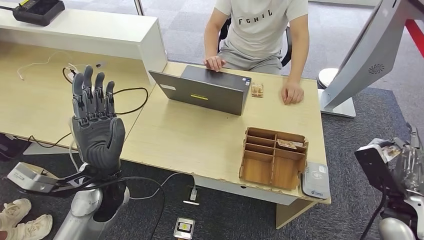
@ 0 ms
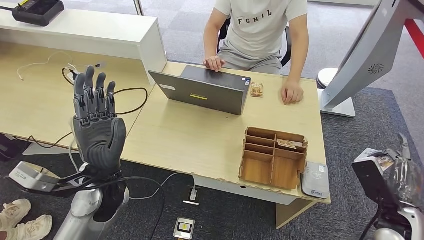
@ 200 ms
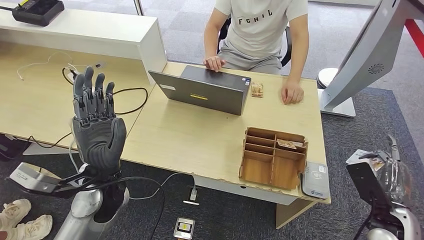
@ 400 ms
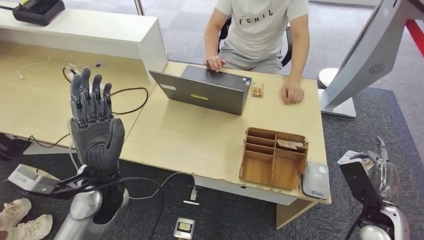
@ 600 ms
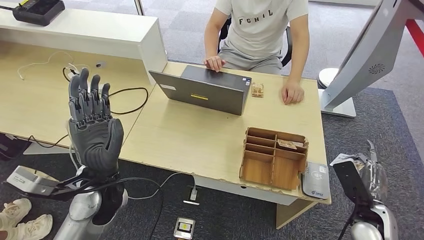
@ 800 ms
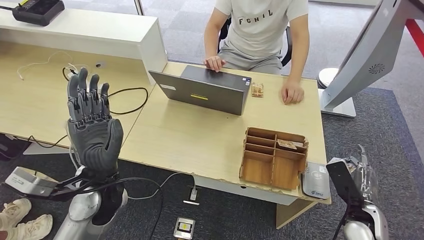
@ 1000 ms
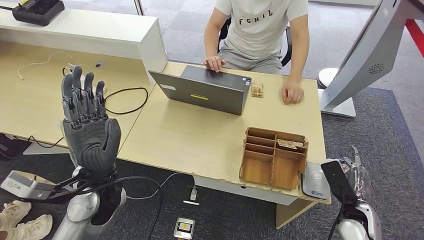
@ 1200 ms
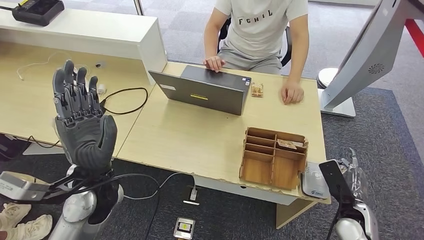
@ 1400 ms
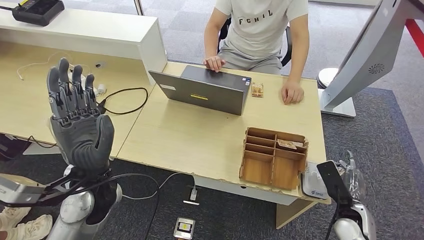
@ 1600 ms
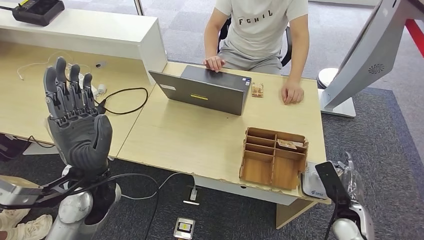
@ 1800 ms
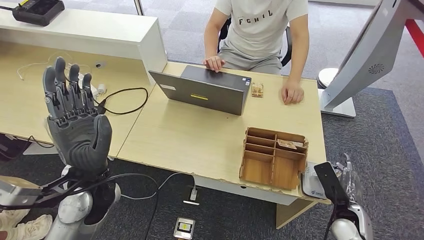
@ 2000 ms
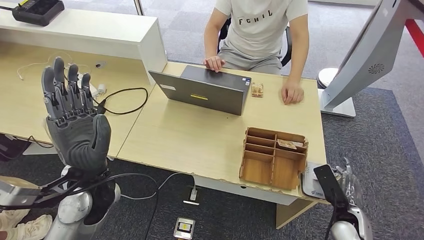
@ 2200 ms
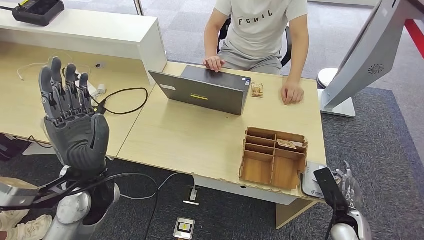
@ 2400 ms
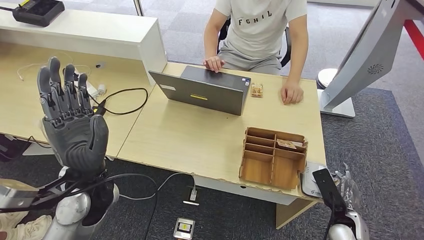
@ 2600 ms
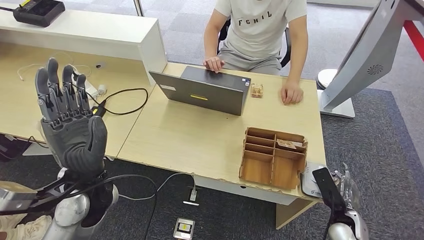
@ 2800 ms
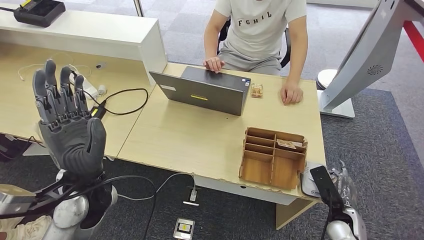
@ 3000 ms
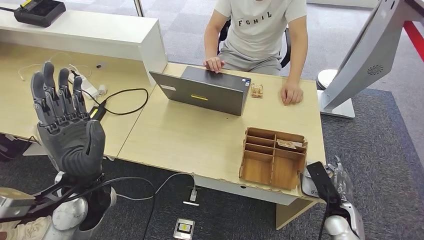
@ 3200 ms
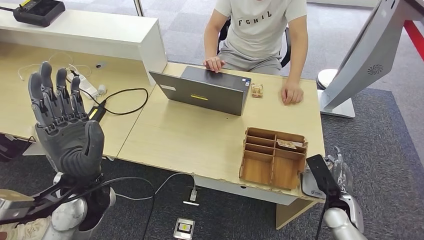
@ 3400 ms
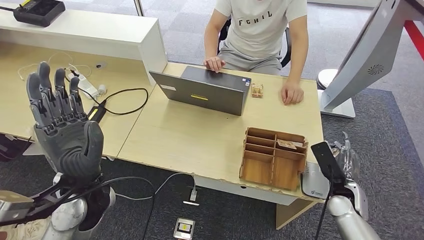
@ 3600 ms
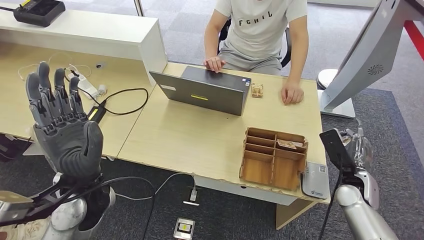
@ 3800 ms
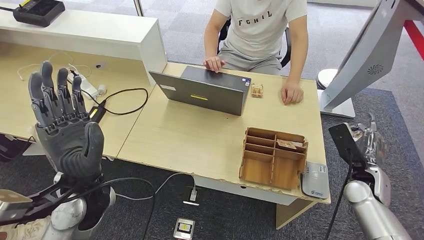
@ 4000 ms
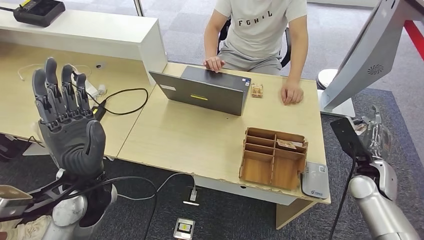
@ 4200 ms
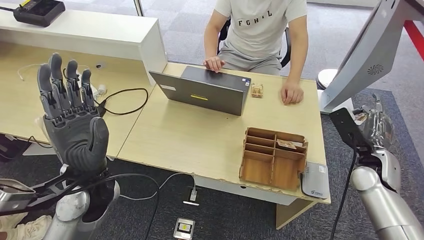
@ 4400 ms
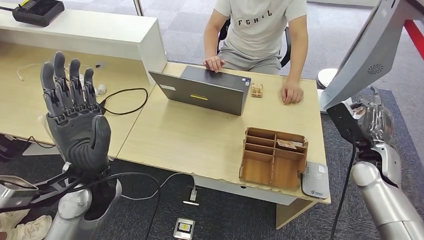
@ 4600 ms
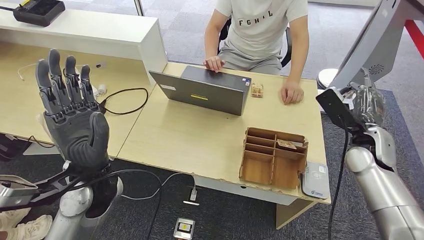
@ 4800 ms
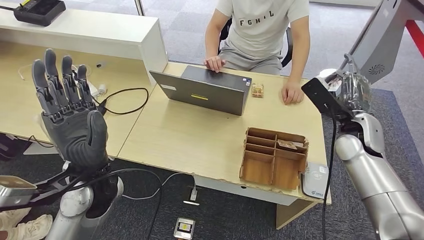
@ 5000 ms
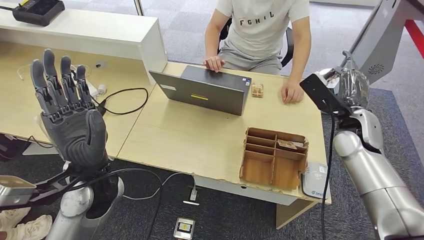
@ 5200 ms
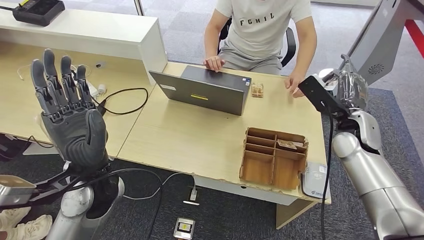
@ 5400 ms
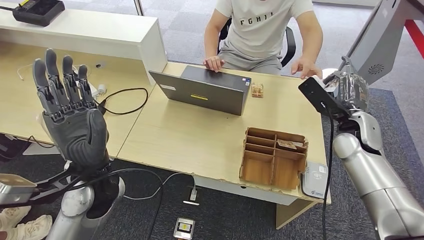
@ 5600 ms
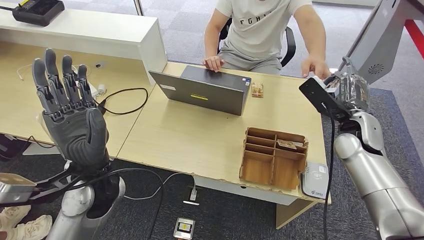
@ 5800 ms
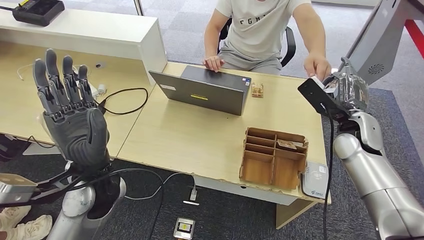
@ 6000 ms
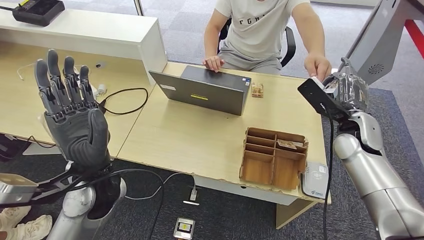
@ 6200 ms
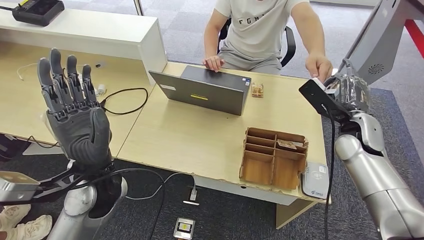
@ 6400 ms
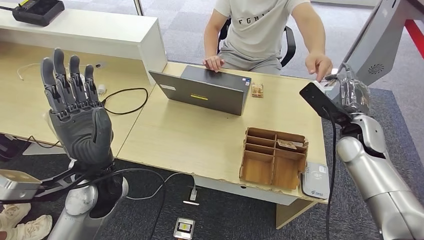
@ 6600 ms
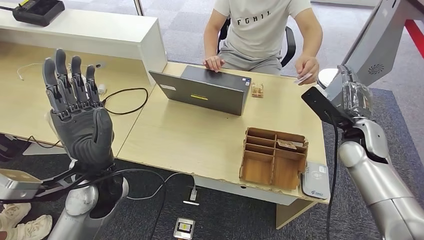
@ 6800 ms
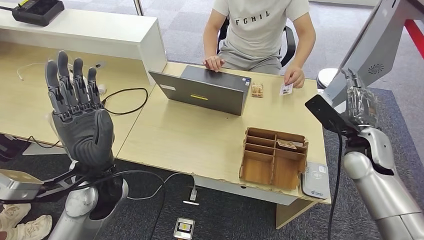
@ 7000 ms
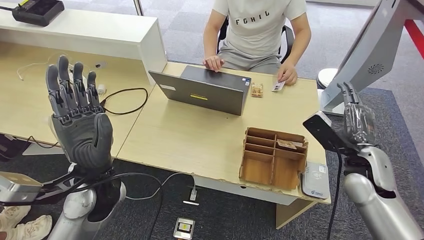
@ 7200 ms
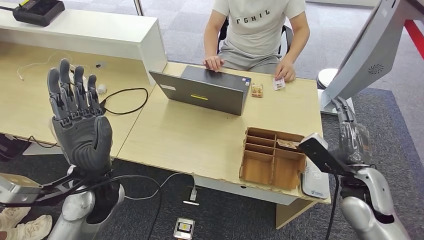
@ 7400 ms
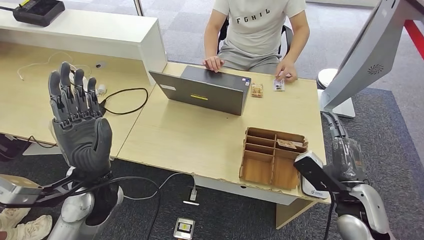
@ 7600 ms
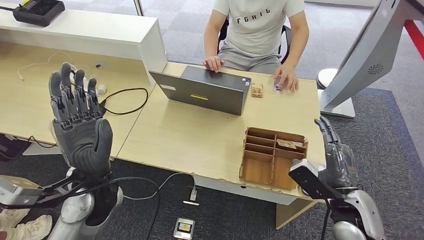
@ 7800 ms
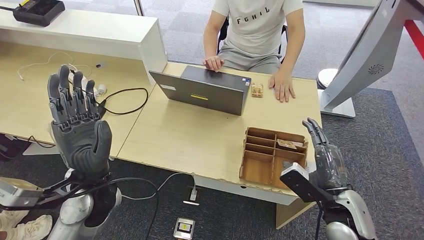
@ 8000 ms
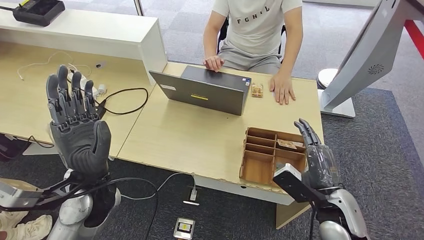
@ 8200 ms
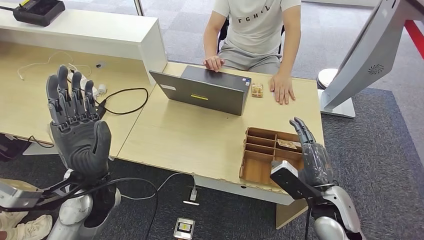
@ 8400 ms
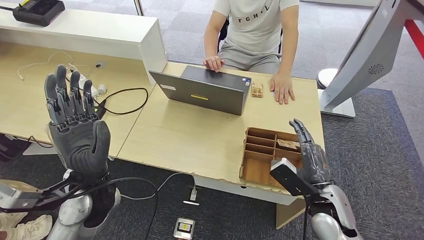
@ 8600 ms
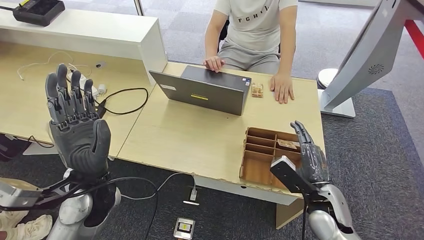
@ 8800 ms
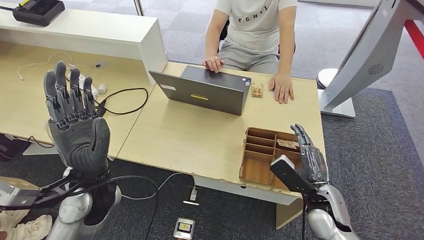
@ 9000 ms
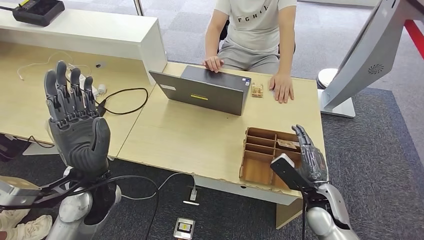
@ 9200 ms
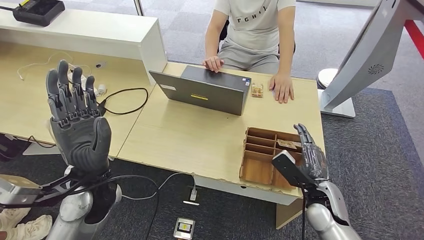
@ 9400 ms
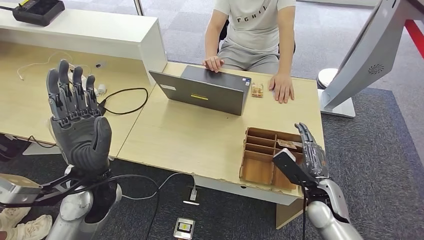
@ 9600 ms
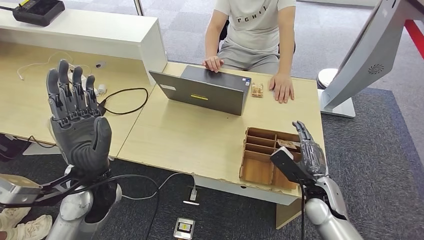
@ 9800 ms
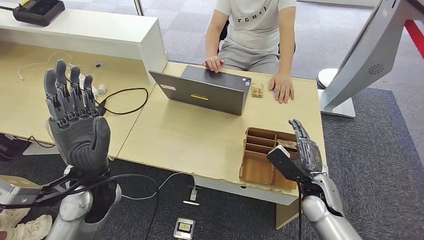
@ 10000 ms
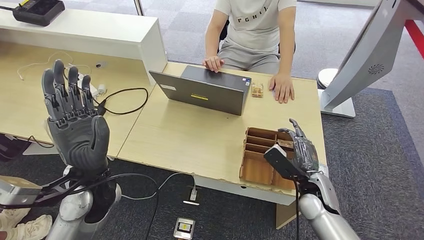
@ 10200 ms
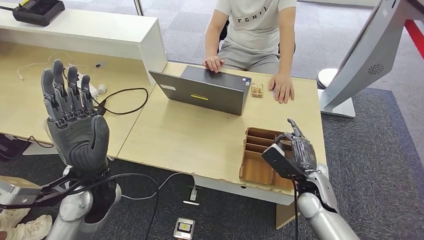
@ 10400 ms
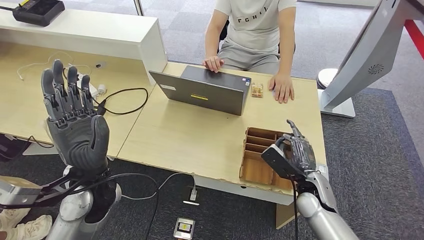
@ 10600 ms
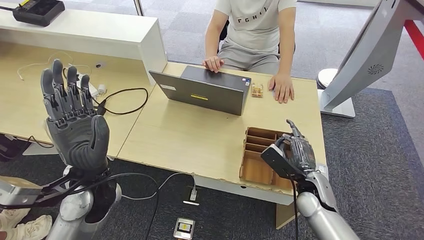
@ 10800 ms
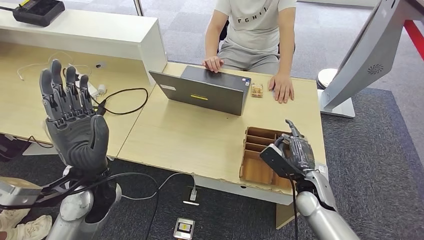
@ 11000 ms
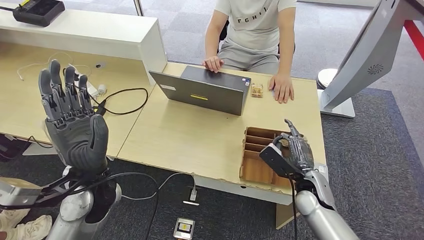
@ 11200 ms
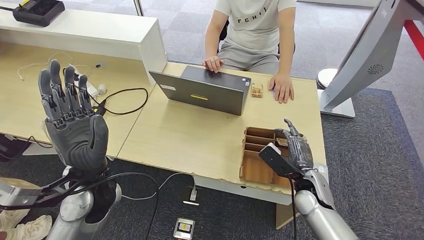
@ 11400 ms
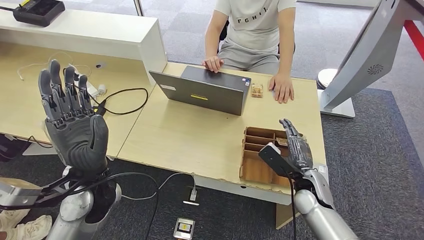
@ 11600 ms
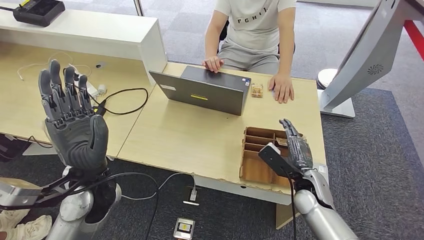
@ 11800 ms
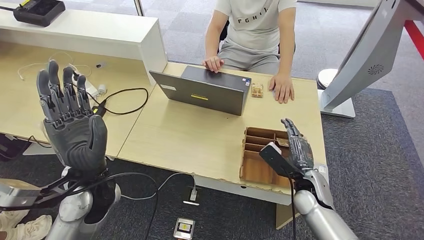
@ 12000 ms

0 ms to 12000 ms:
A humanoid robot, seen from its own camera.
Step, 0 ms to 3800 ms: Place the ID card on the card reader.
Step, 4000 ms to 7600 ms: Hand the ID card to the person.
0 ms to 1600 ms: The right hand travels downward by some 10 cm.
1600 ms to 3000 ms: The hands move only a little.
3000 ms to 4400 ms: The right hand is displaced upward and forward by approximately 20 cm.
4400 ms to 6000 ms: The right hand is displaced upward and to the left by about 10 cm.
6000 ms to 7600 ms: The right hand moves backward and downward, about 15 cm.
7600 ms to 9000 ms: The right hand moves downward, some 5 cm.
9000 ms to 10400 ms: The hands make only small movements.
10400 ms to 12000 ms: Both hands stay about where they are.

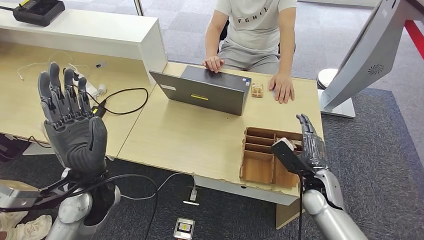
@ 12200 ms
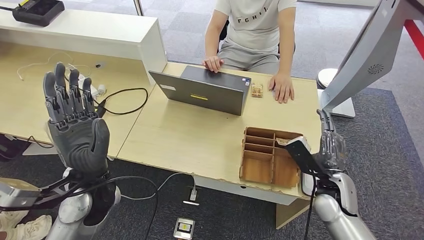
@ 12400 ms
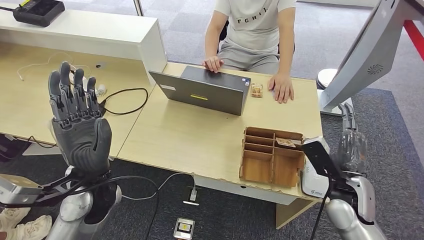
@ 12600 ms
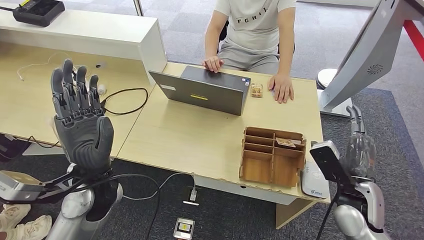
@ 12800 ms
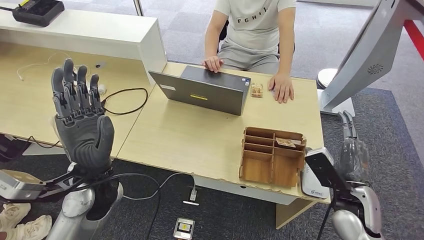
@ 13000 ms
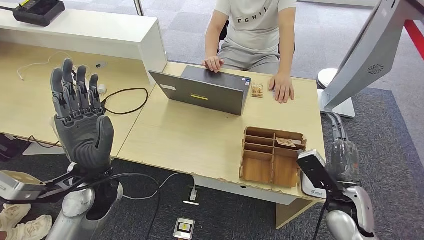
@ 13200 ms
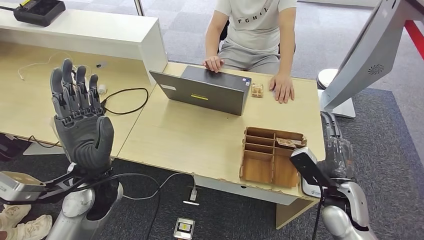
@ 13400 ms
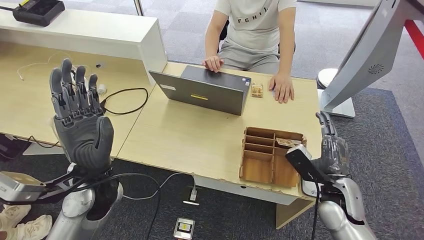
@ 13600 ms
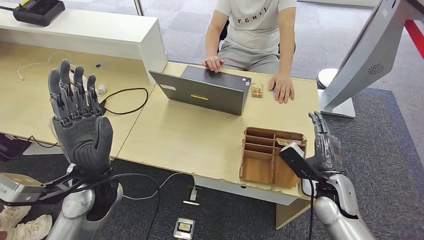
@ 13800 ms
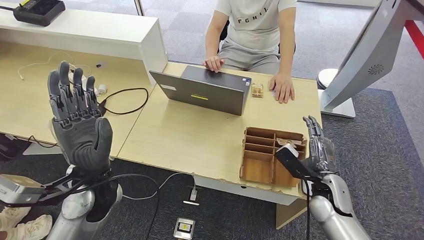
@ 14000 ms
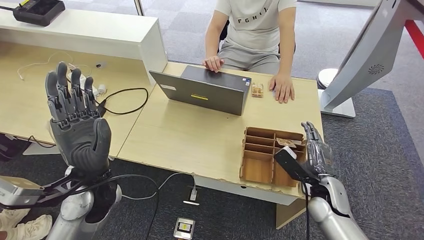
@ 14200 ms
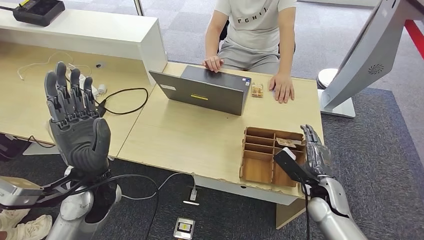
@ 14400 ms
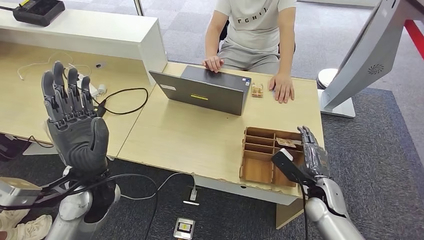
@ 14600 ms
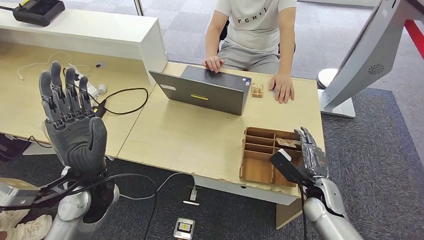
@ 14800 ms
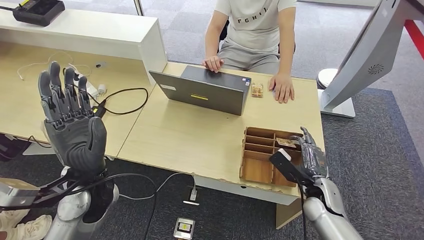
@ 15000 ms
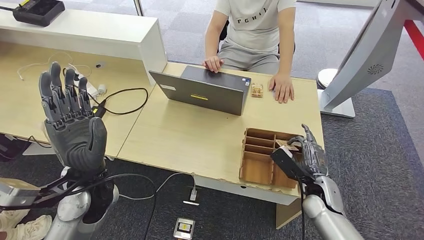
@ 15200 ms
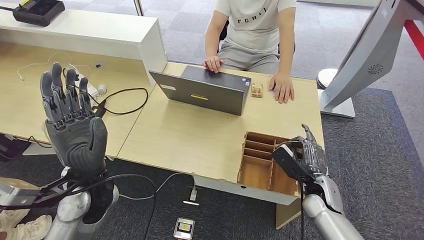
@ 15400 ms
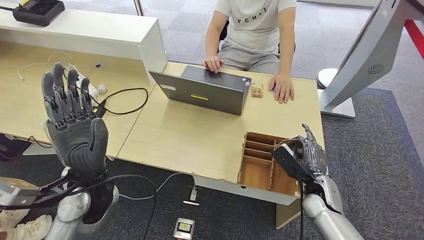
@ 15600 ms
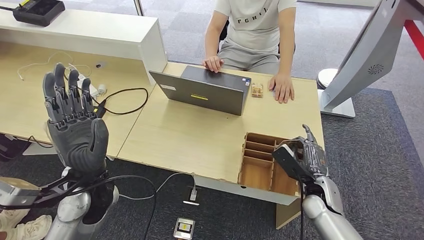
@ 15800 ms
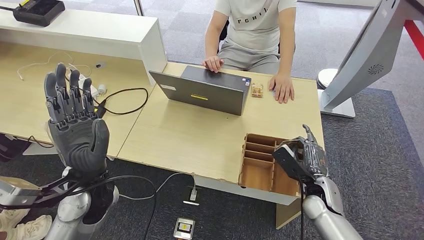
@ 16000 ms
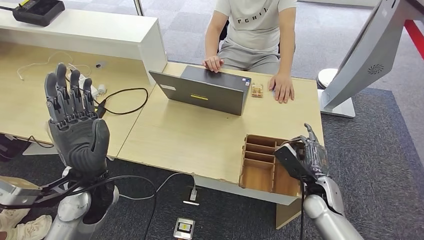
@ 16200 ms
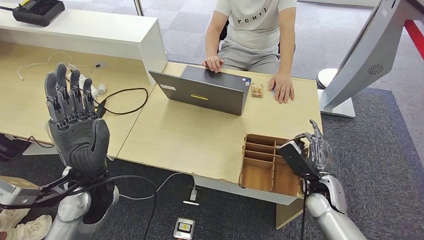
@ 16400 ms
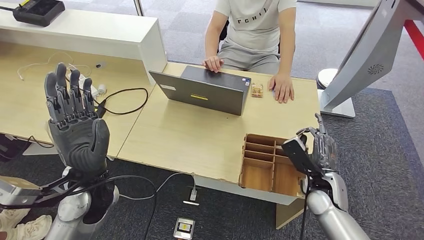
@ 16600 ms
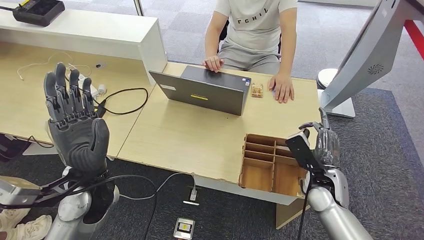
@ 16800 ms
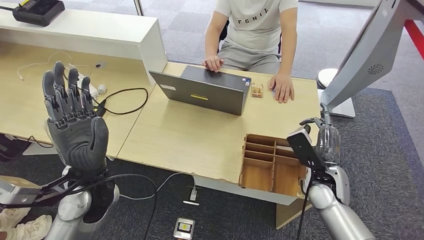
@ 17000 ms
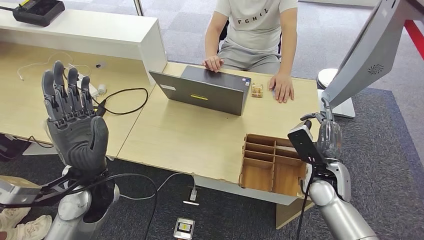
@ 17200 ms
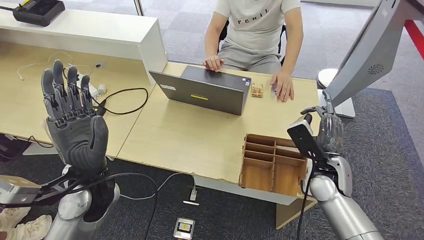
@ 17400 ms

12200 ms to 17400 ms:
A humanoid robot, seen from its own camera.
14000 ms to 15600 ms: There are only small adjustments of the hands.
15600 ms to 17400 ms: The right hand heads upward, covering some 5 cm.
